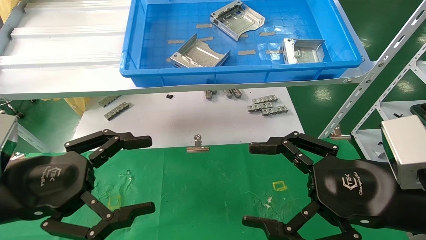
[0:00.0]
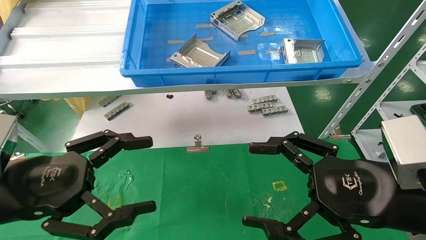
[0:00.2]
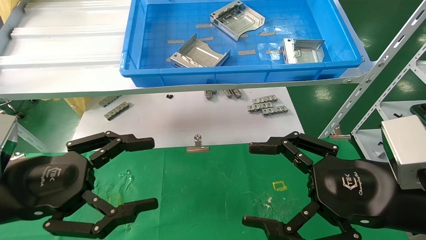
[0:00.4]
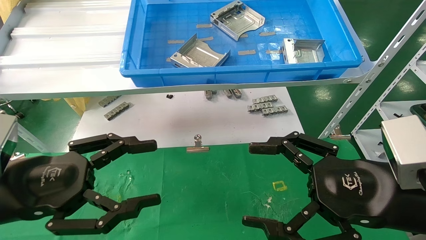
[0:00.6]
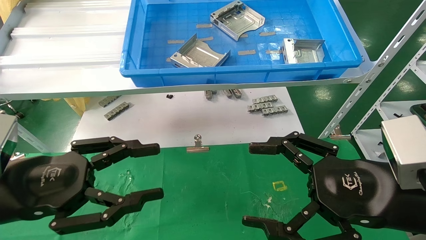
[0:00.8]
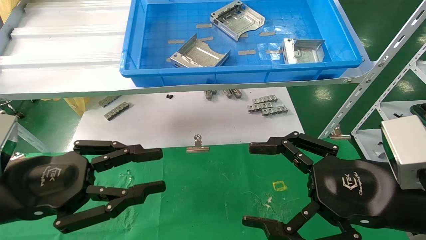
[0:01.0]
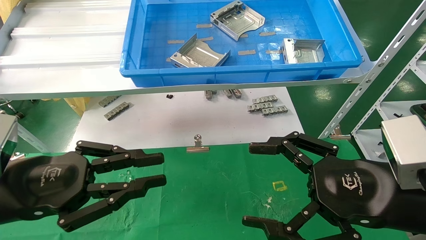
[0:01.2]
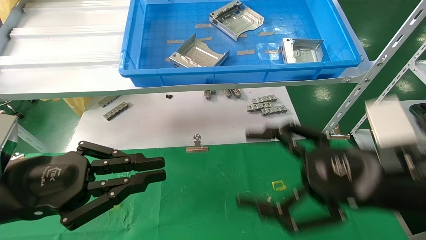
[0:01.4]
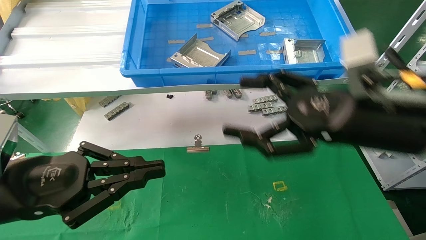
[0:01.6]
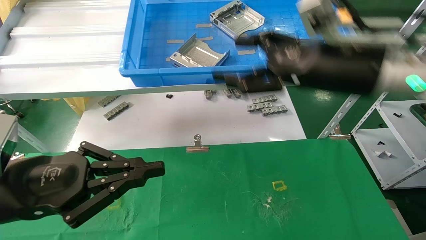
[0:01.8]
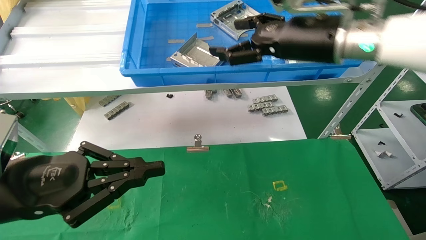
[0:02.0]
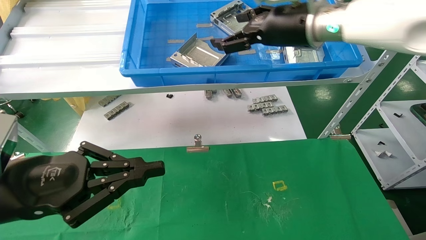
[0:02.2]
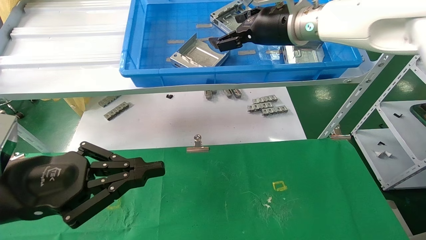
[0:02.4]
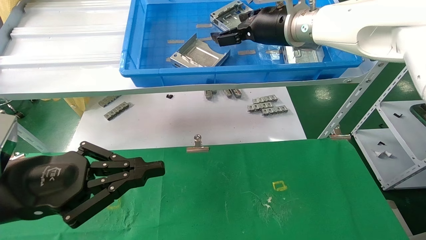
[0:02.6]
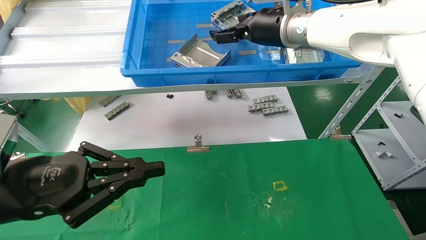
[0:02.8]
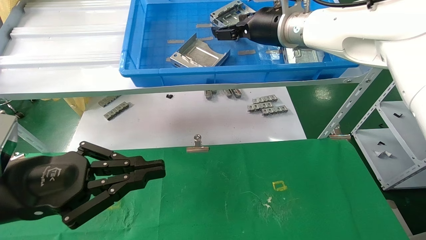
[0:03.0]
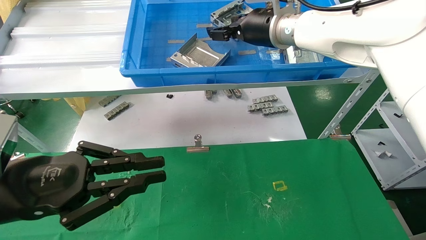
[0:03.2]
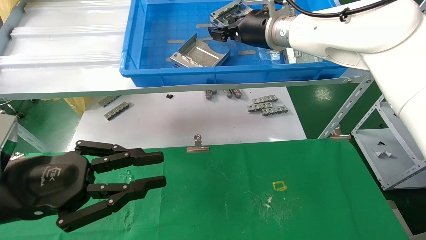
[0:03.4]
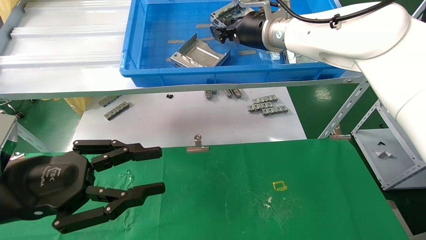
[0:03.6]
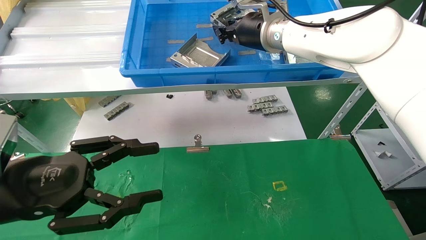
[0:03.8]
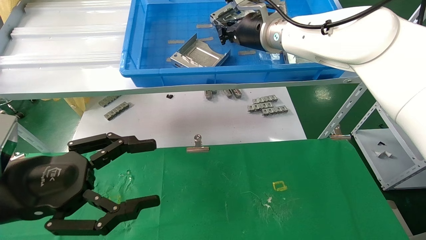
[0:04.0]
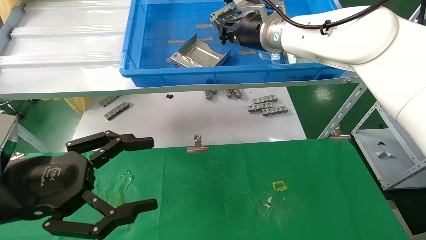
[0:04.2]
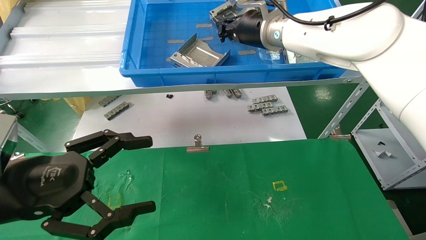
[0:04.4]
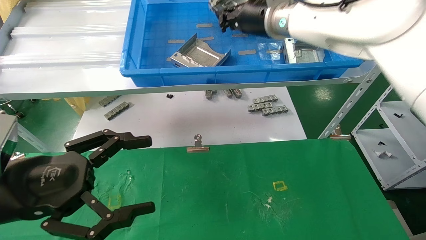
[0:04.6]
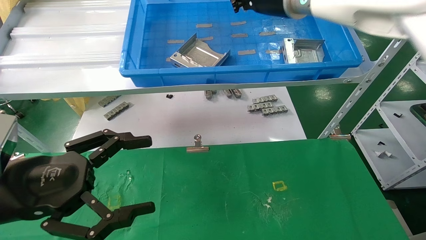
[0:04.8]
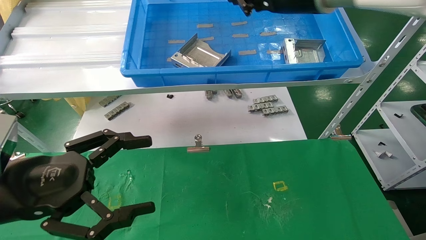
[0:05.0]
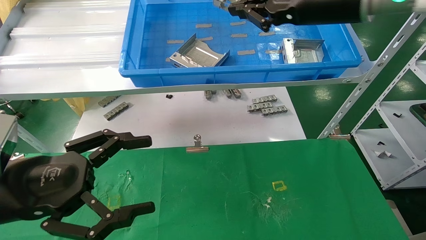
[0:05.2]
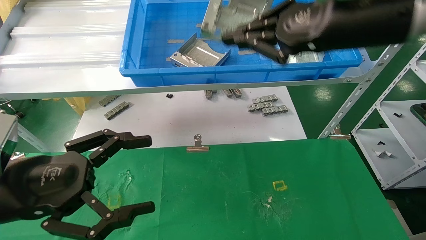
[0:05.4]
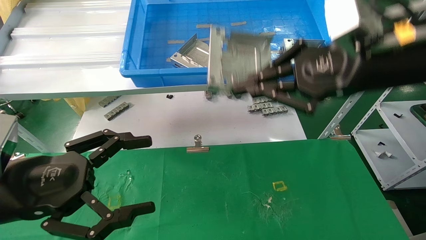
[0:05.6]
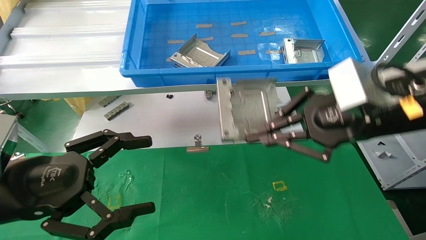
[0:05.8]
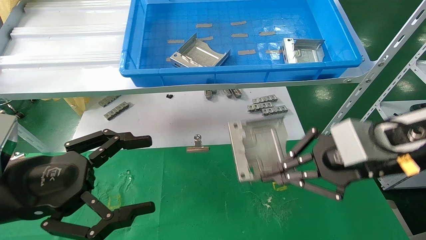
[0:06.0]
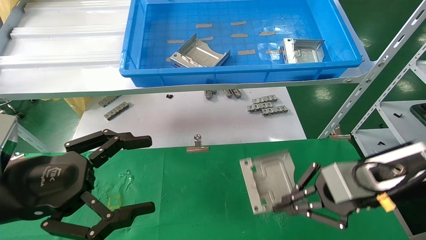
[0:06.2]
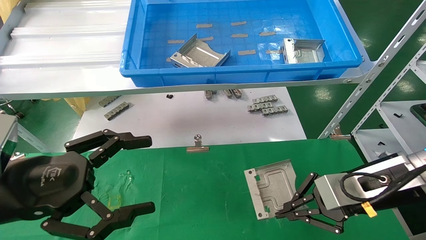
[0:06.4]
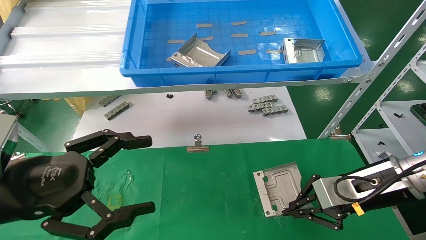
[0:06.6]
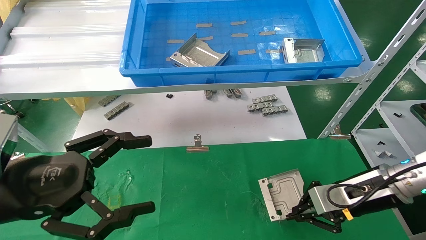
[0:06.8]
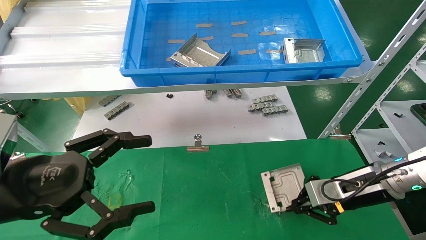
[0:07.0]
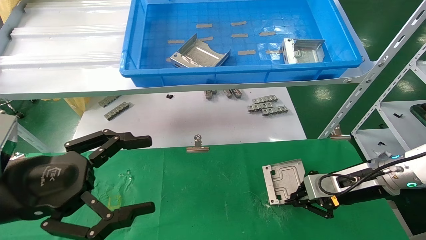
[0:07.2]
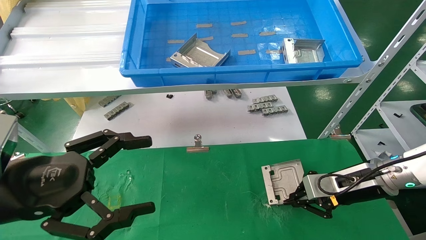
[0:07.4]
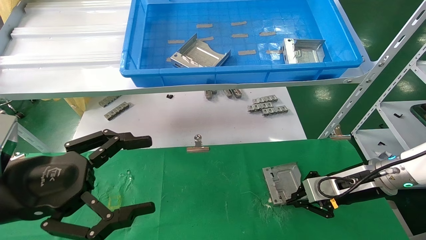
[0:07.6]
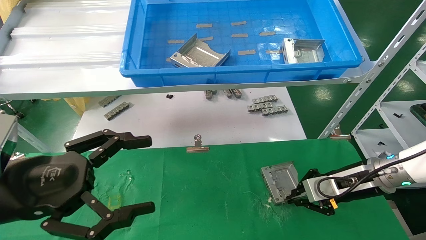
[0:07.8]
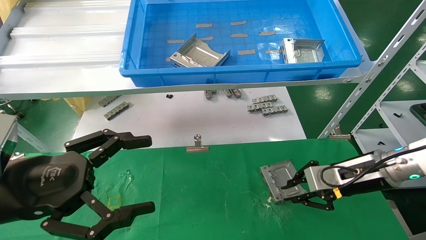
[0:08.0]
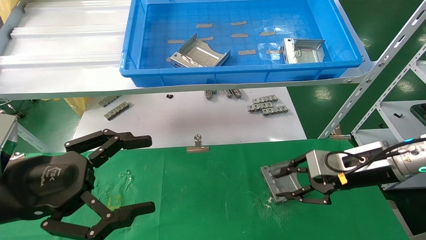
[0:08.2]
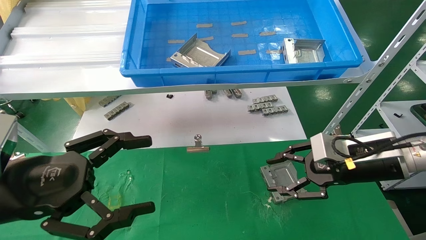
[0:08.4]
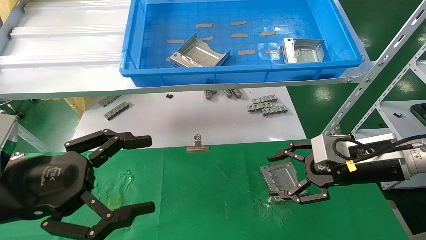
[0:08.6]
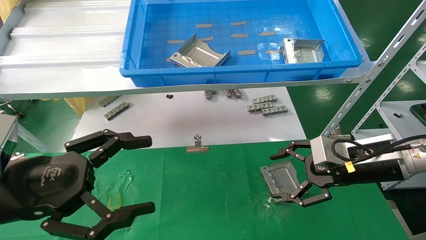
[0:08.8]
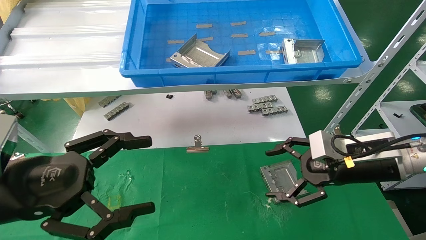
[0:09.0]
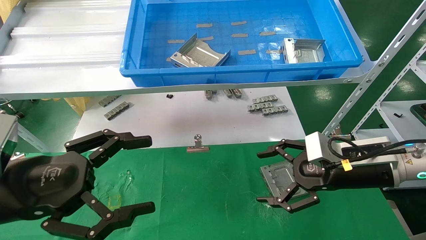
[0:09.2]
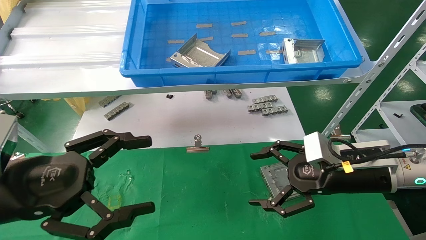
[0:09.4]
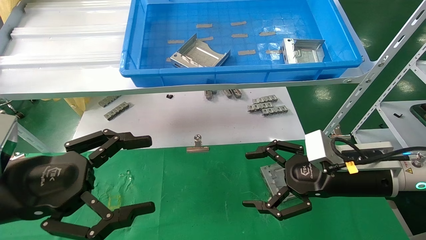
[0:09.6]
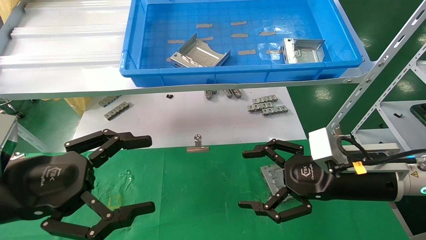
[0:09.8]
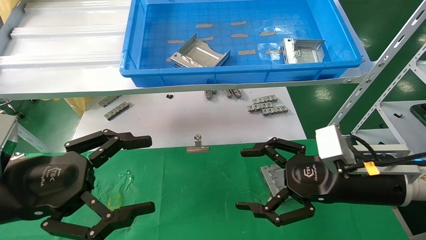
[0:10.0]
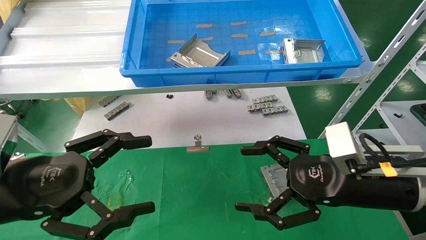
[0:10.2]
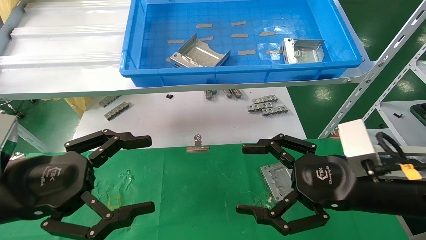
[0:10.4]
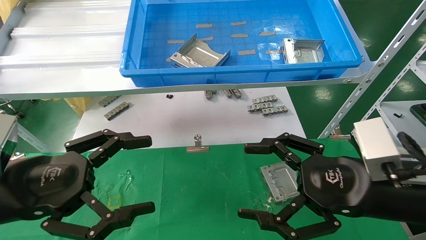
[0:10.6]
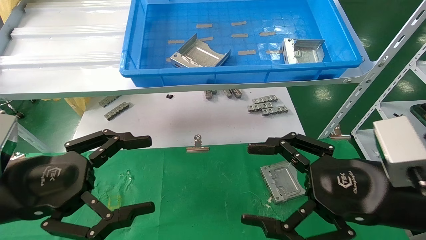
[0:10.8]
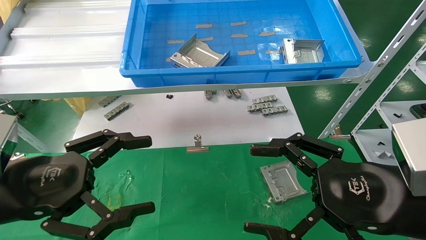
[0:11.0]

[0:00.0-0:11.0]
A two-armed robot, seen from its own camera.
Task of the whole recording: use the mechanical arm to pick up the parts and place them on the table.
Step, 0:01.6 to 0:05.2: Pick up the hard drive bracket from the feeding area.
Step, 0:05.4 to 0:09.0: Place the hard drive bracket into the box.
0:00.0 to 0:01.6: The right gripper moves upward and forward, about 10 cm, while the left gripper closes its fingers.
0:01.6 to 0:03.2: The right gripper shifts about 25 cm forward, upward and to the left.
0:03.2 to 0:04.8: The right gripper changes place by roughly 5 cm, and closes up. Meanwhile the left gripper opens up.
0:04.8 to 0:06.2: The right gripper heads downward, backward and to the right, covering about 30 cm.
0:06.2 to 0:07.8: The right gripper travels forward and downward by roughly 15 cm.
0:07.8 to 0:09.4: The right gripper is displaced backward and to the left by roughly 10 cm, and opens its fingers.
0:09.4 to 0:11.0: The right gripper moves backward, about 10 cm.
